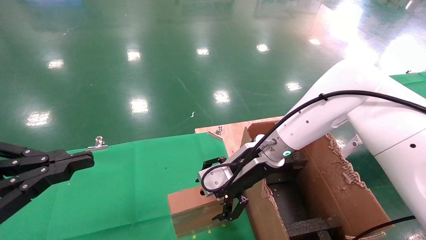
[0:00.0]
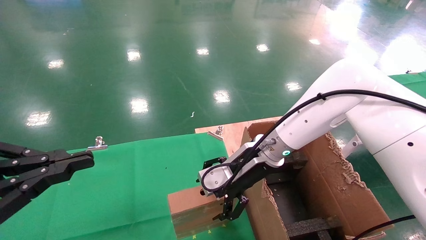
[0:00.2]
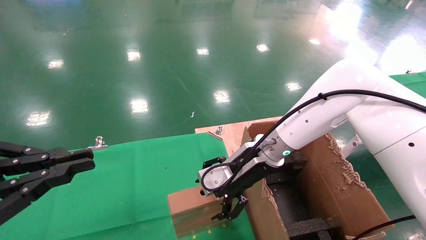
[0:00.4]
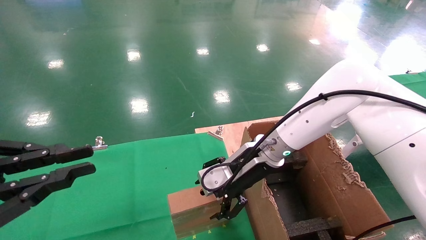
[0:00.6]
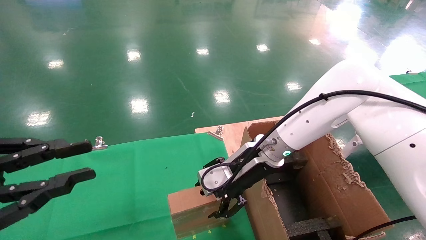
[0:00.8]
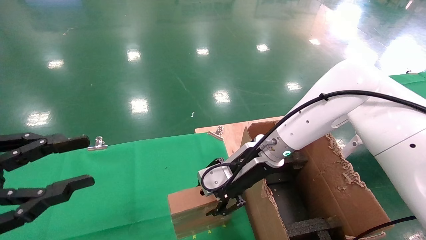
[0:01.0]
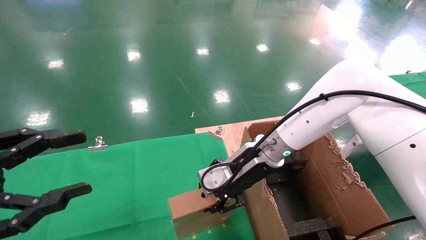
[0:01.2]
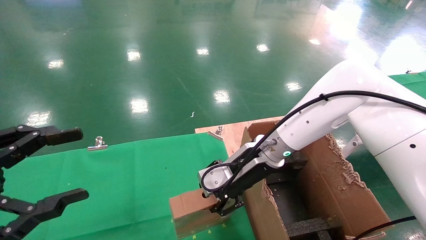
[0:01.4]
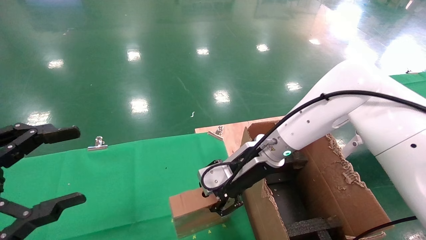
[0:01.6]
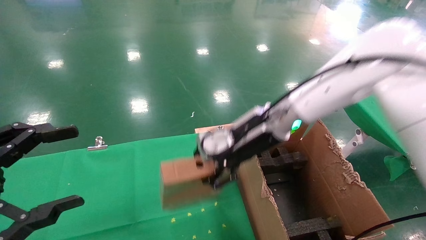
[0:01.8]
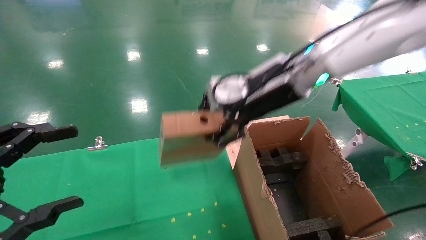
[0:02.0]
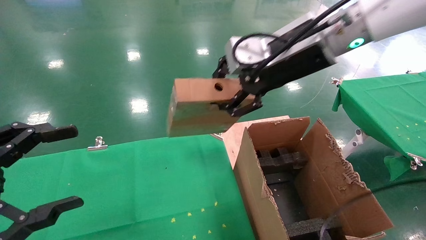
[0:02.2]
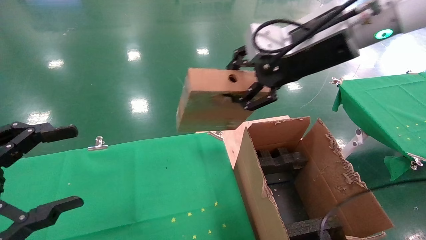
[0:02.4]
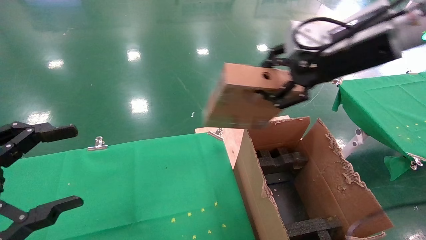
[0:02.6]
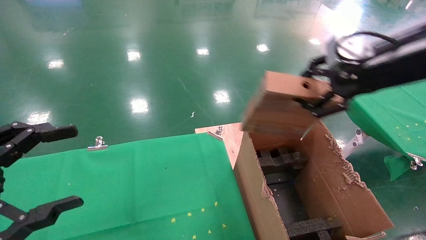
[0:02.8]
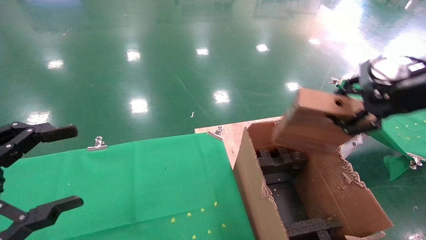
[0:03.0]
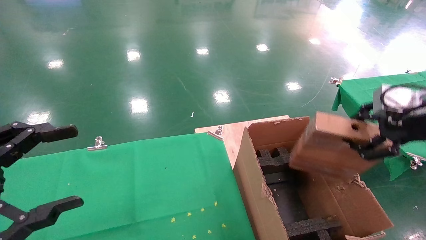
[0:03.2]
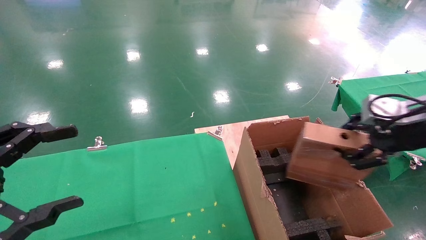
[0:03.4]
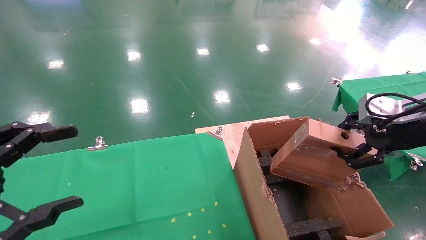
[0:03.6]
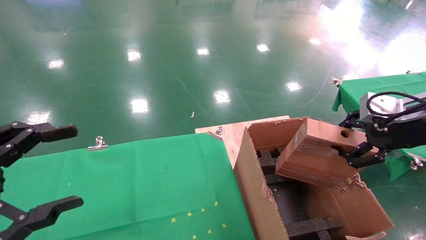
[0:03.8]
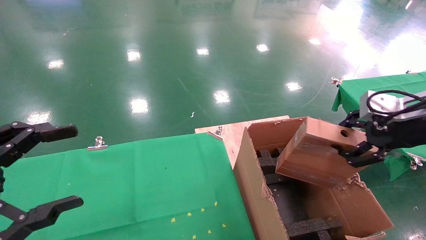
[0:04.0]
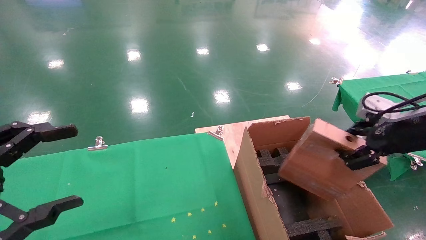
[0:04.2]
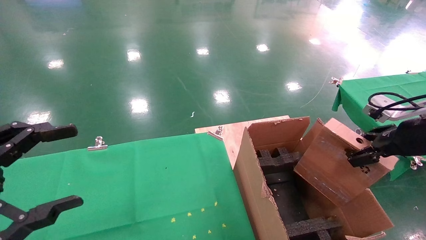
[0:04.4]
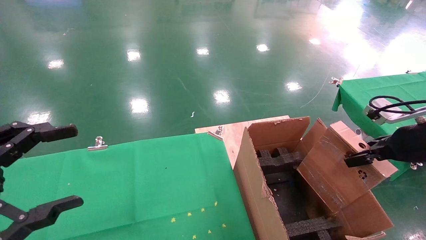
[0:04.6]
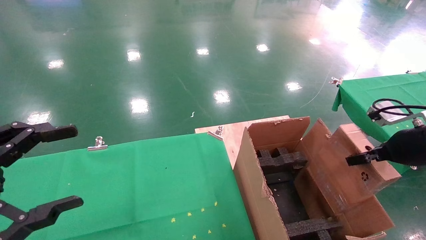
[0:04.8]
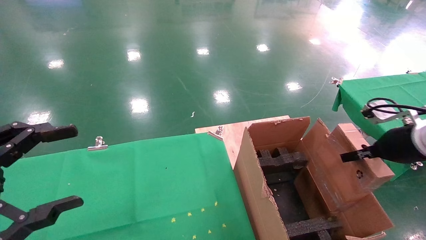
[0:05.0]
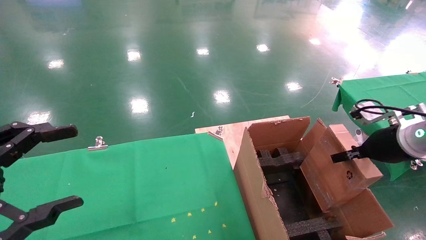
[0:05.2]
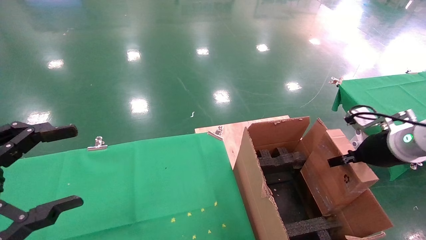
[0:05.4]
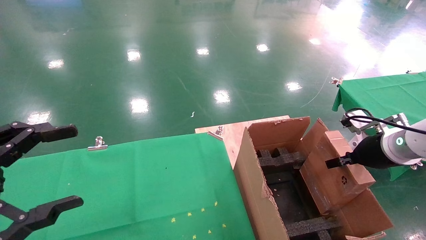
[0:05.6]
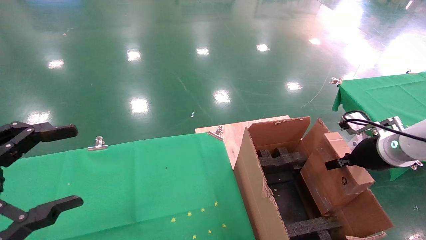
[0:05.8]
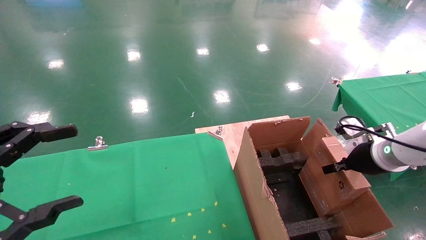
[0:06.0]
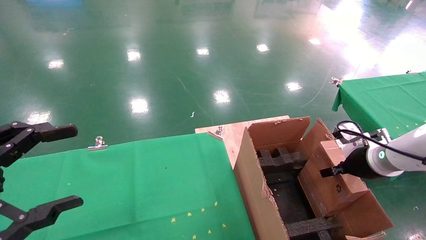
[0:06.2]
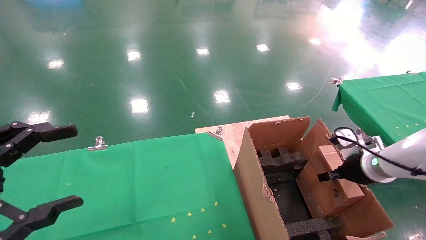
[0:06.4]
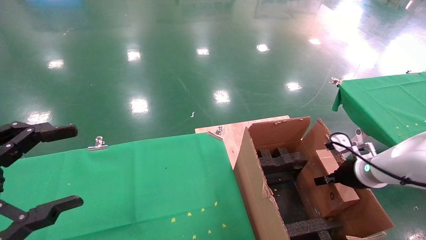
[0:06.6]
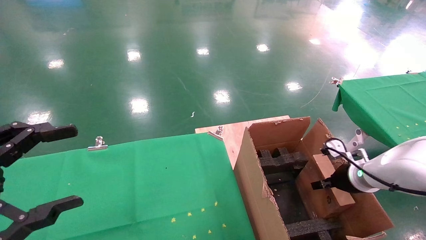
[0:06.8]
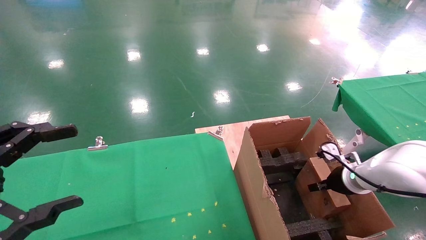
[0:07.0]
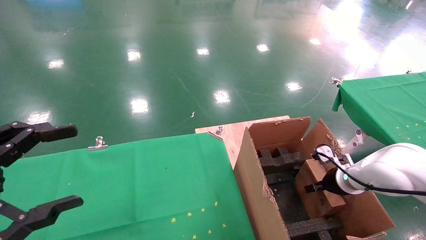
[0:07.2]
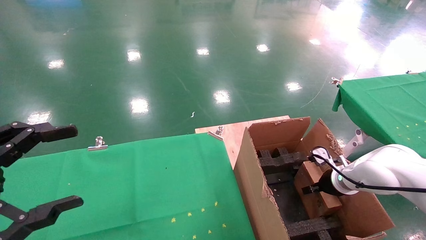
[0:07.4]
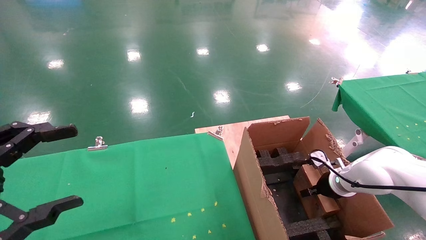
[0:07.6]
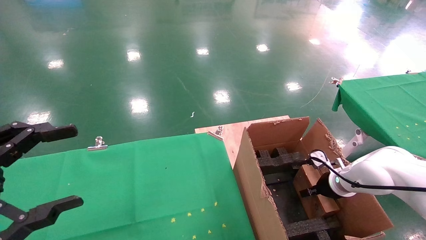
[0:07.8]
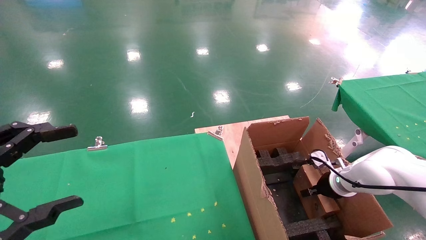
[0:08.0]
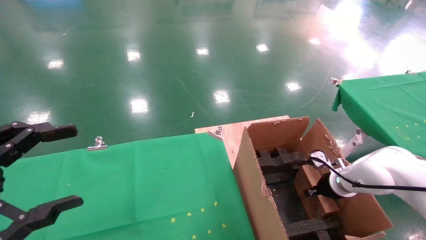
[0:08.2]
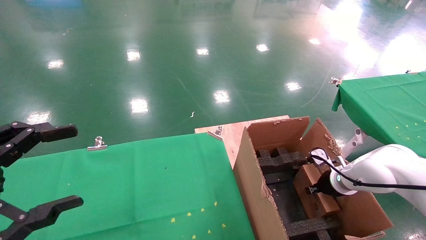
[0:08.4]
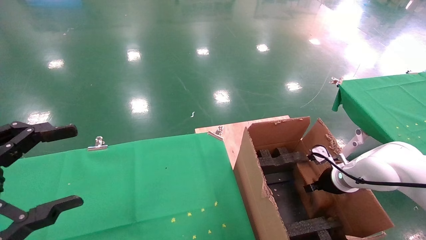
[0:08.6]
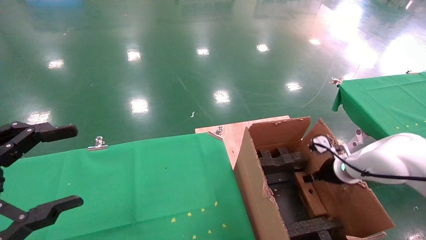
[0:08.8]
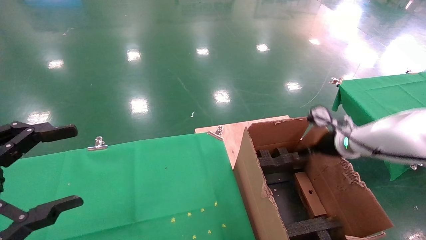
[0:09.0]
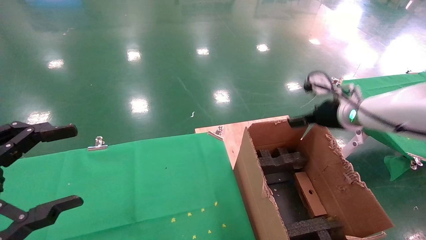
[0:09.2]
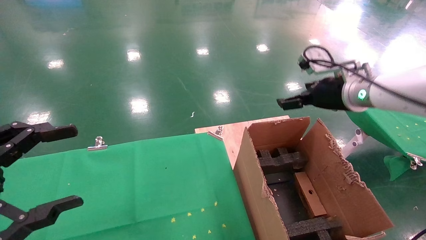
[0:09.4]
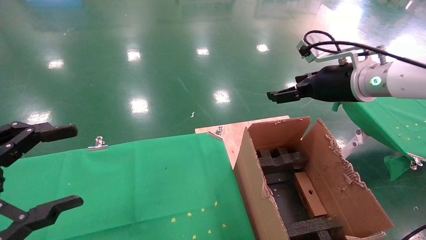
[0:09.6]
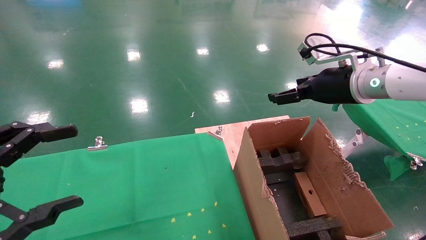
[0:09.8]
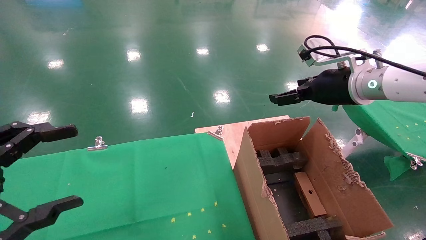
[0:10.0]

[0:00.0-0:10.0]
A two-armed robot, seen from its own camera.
Task of the whole recording: using a robotic arm to pick up a cardboard box and palace it the carton.
Step, 0:01.4 to 0:09.0: Place the mouse and the power cord paper box into the container.
0:00.0 to 0:01.4: The left gripper opens its fingers. The right gripper closes up.
0:01.4 to 0:02.8: The right gripper heads to the right, upward and backward, covering some 30 cm.
0:02.8 to 0:04.2: The right gripper is displaced downward and to the right by roughly 15 cm.
0:04.2 to 0:05.8: The right gripper is displaced downward and forward by some 10 cm.
0:05.8 to 0:07.2: The right gripper travels downward and forward by roughly 15 cm.
0:07.2 to 0:08.6: The right gripper opens.
0:08.6 to 0:10.0: The right gripper is displaced upward by about 25 cm, and opens.

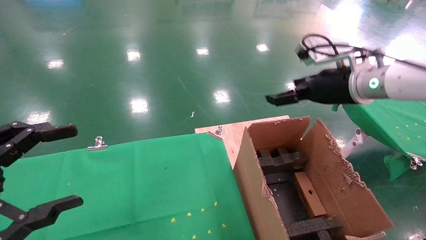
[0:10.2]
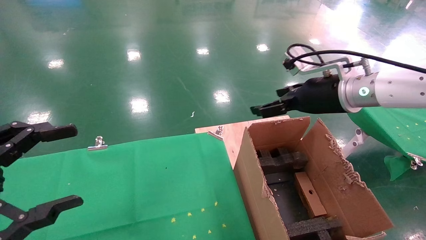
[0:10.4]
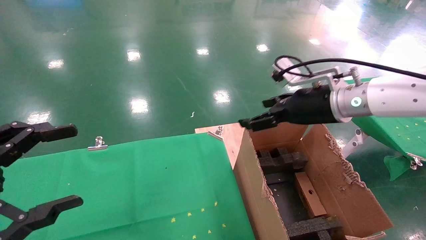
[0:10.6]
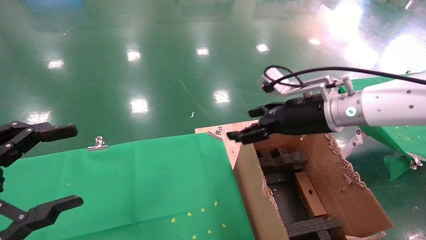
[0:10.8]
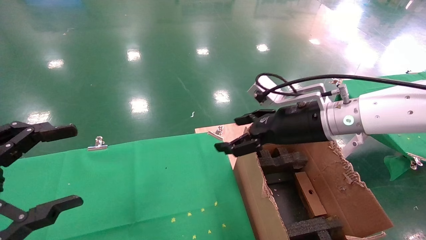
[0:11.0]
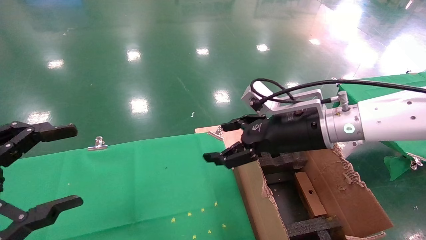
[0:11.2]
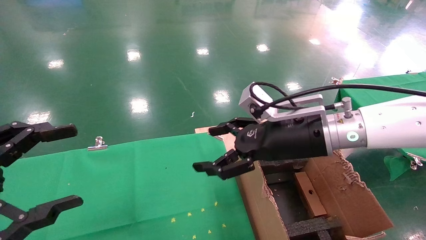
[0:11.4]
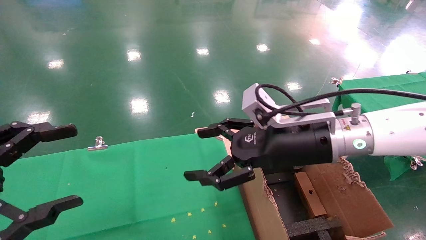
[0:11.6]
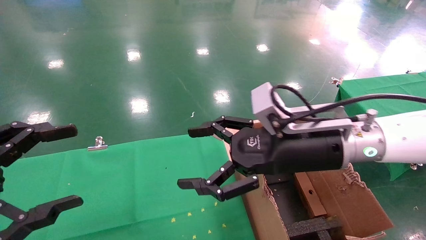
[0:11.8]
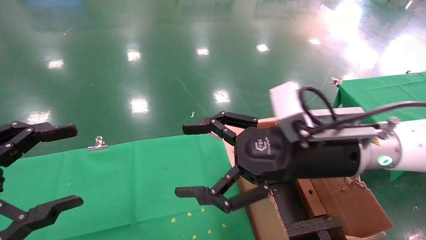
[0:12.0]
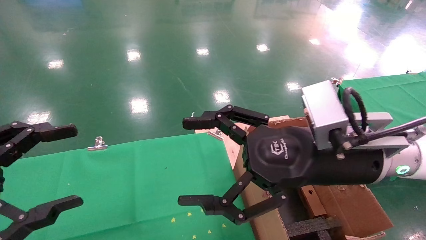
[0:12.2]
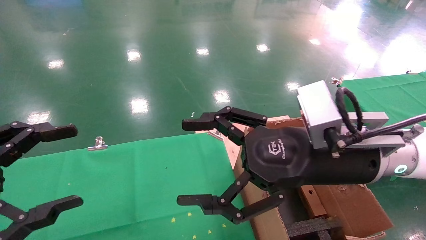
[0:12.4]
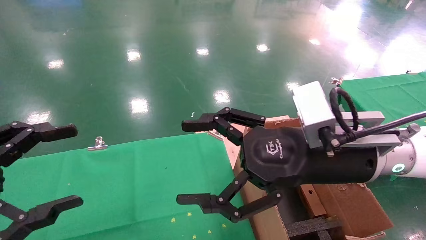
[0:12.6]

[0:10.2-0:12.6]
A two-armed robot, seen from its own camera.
Task of the whole recording: using a robotic arm to pick up a cardboard box and palace it the carton.
0:10.2 to 0:11.4: The right gripper travels to the left, downward and backward by roughly 10 cm.
0:11.4 to 0:12.6: The right gripper goes some 5 cm backward.
